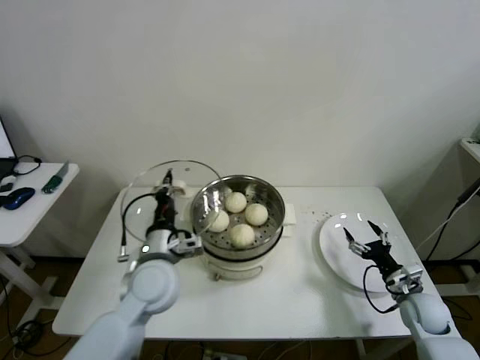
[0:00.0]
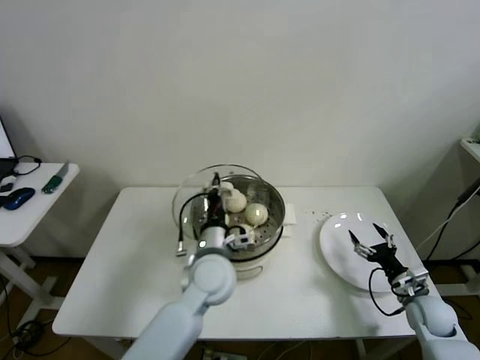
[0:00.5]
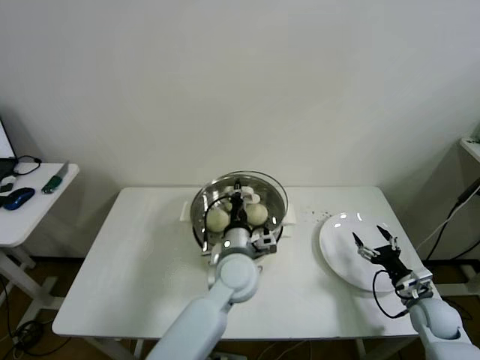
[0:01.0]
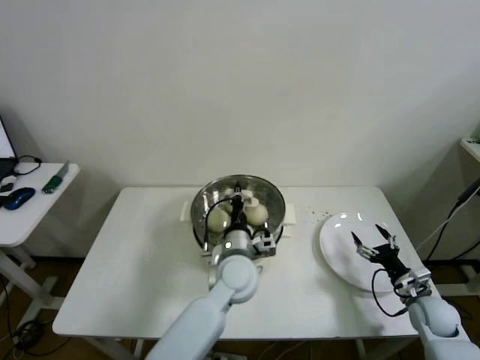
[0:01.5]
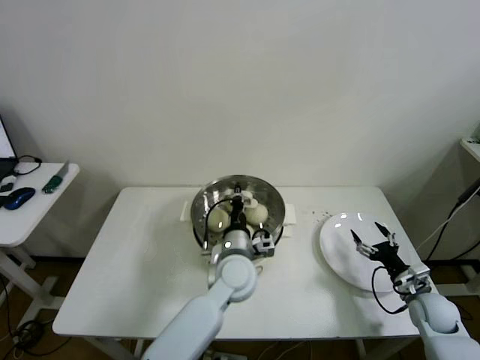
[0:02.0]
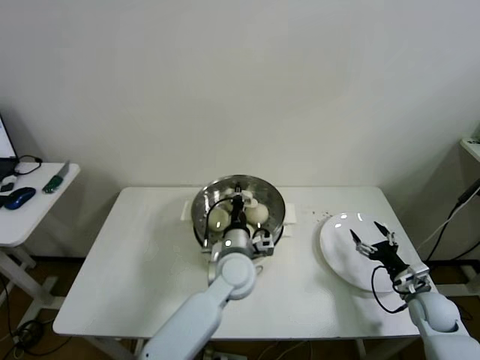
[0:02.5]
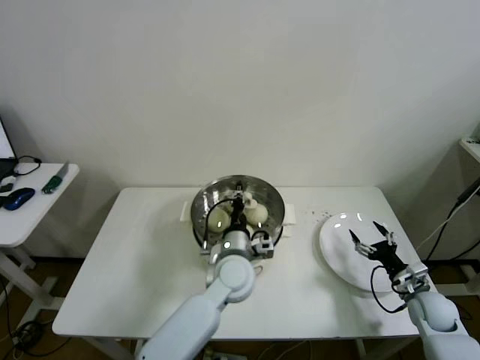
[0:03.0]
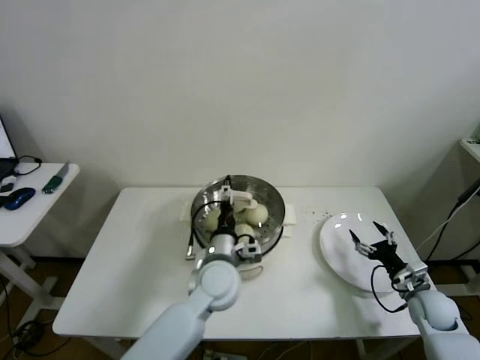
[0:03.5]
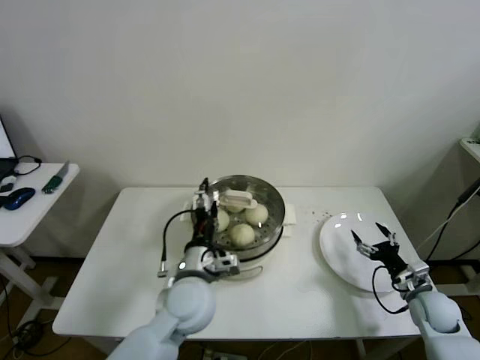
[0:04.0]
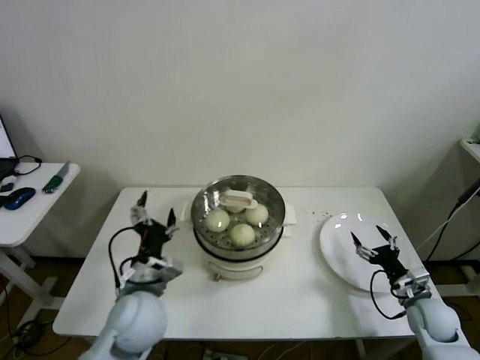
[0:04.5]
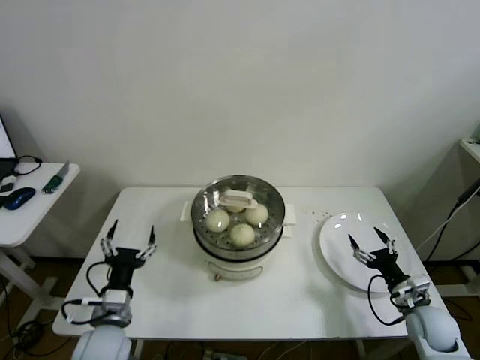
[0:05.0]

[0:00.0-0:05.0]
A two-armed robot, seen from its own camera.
Step, 0:00.0 to 0:02.5: Place the pot lid on the steamer with left gripper.
0:00.0 to 0:02.5: The left gripper moves to the right, some 15 cm.
0:02.5 to 0:05.0: The left gripper heads to the left and backward, covering about 30 cm, and opens up.
